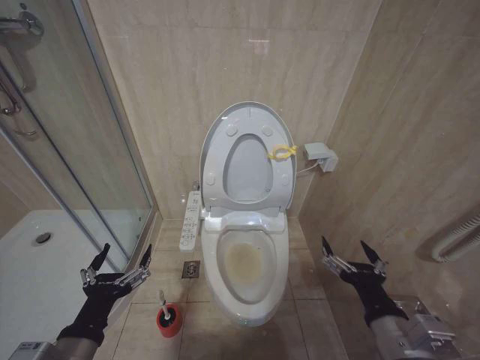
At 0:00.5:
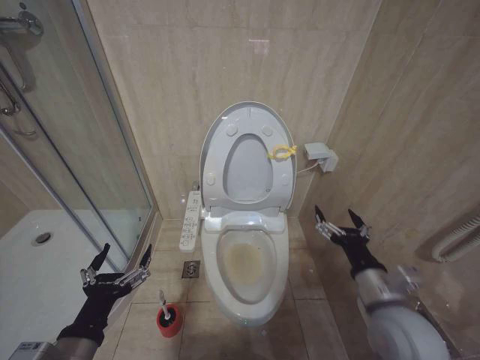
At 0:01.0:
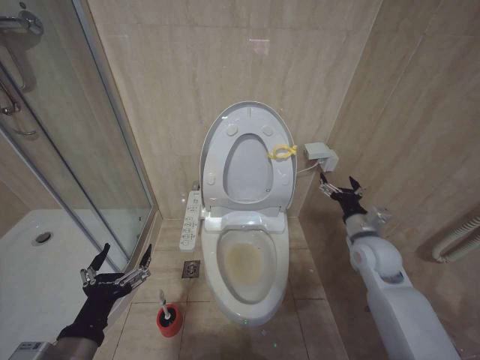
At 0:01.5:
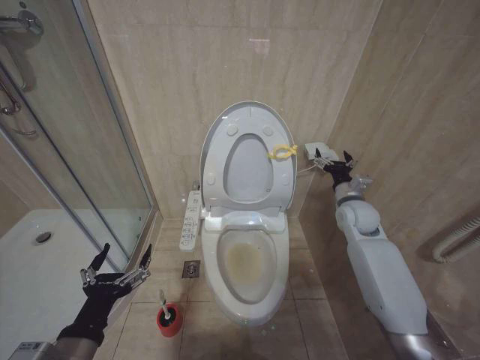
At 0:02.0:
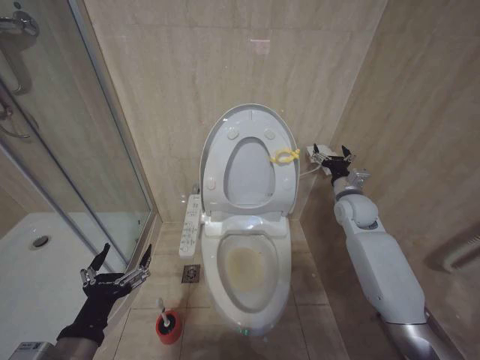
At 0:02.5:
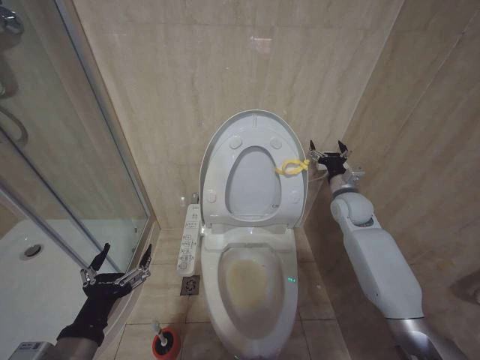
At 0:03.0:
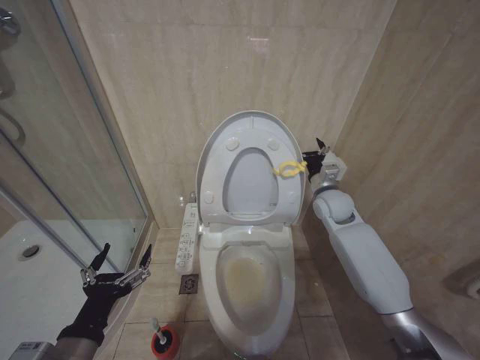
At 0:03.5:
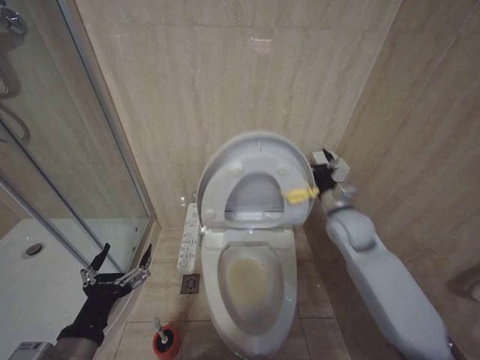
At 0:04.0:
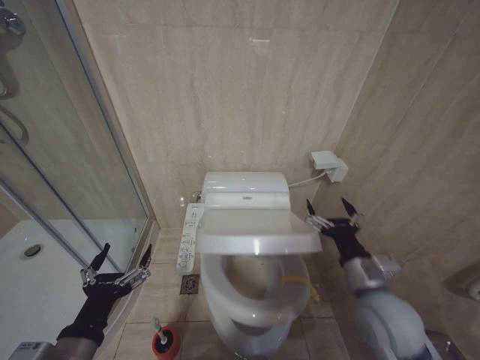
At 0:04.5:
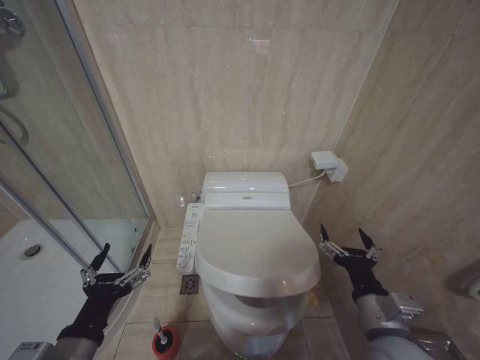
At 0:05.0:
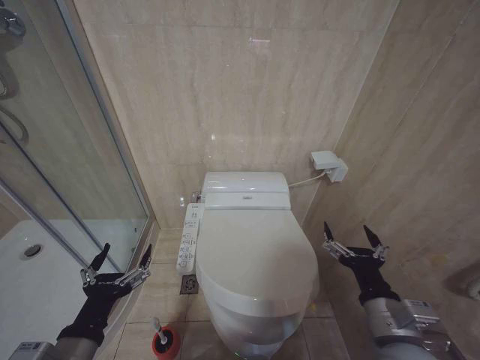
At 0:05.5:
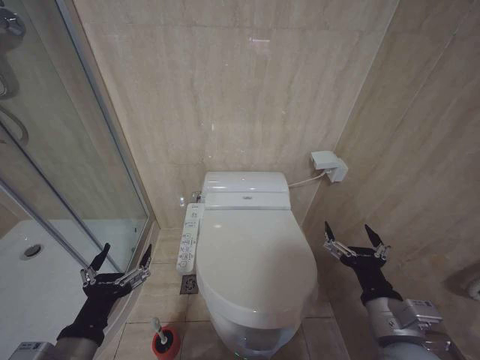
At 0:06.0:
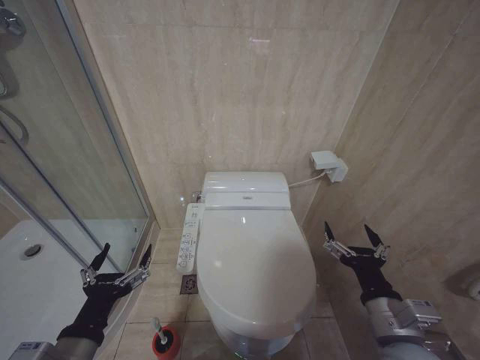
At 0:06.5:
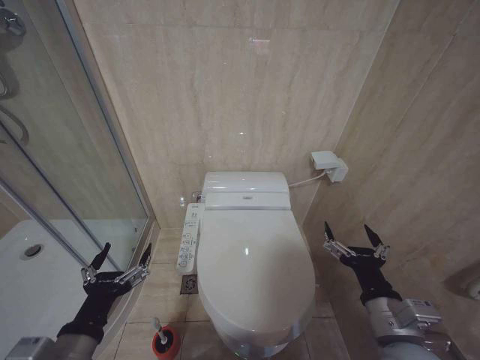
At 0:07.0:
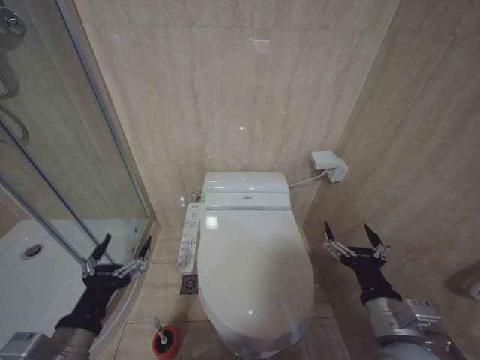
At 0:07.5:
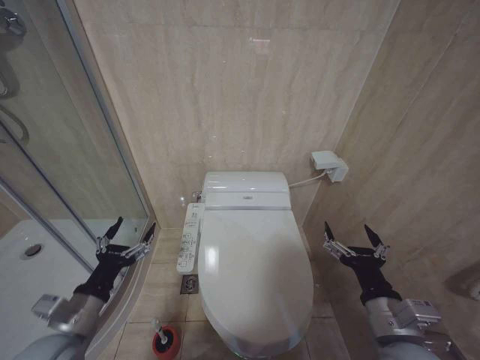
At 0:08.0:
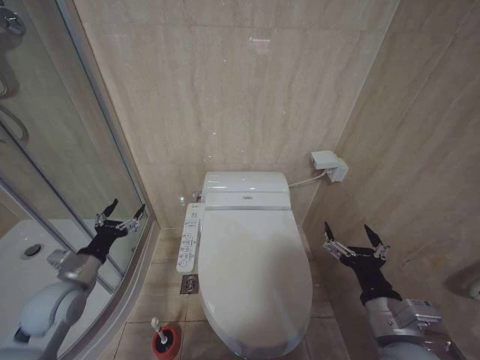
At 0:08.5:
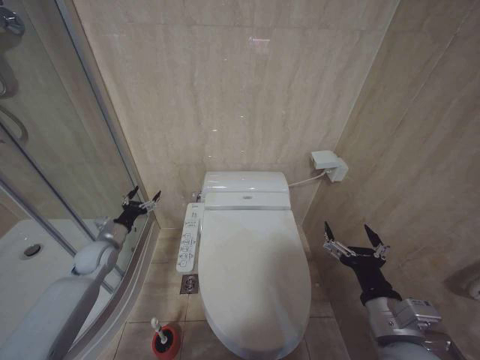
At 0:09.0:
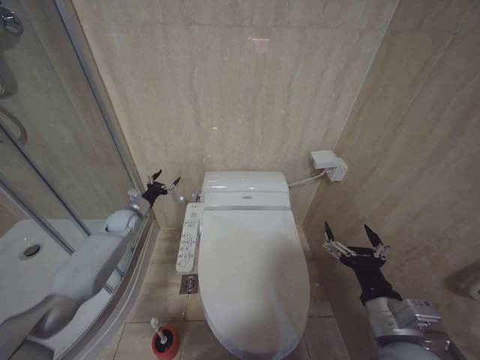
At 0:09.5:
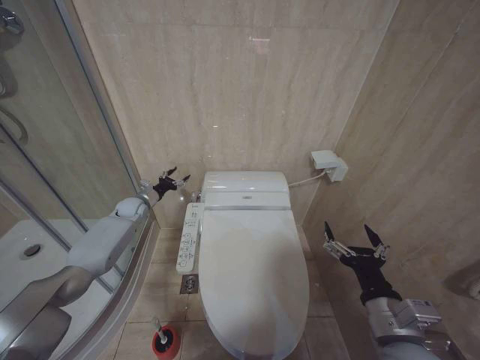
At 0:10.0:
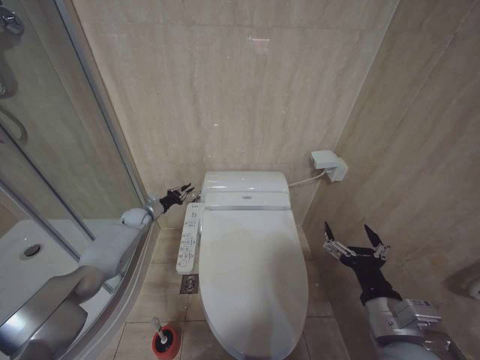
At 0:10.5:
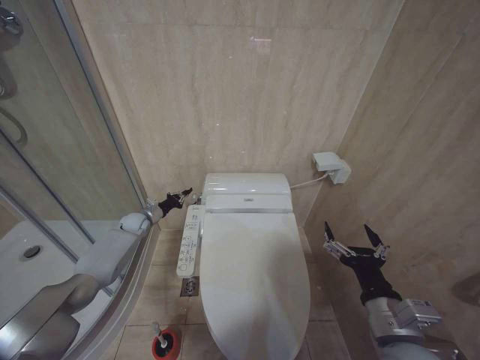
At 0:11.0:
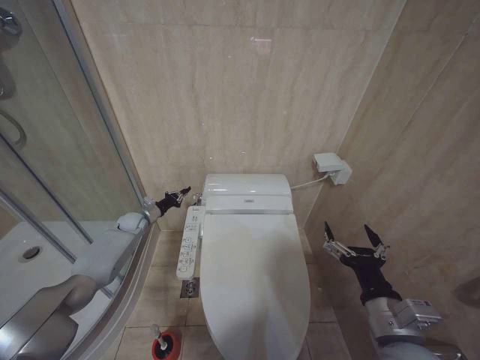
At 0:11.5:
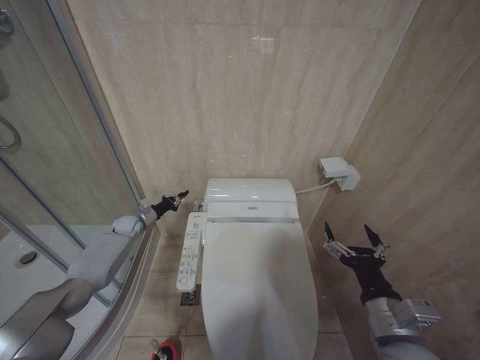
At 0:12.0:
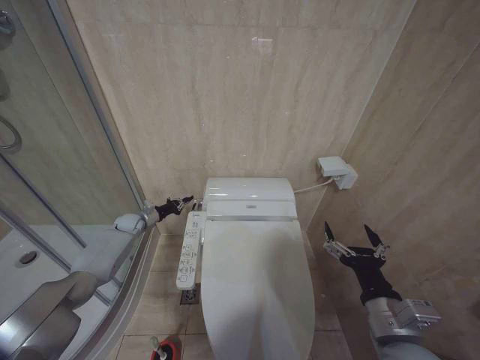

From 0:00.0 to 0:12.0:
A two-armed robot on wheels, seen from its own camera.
Task of the whole recording: Open the toilet lid, clean the toilet bowl with a toilet brush, close the toilet lid, and flush.
From 0:00.0 to 0:02.0: The right gripper moves forward, approximately 35 cm.
From 0:02.0 to 0:04.0: The right gripper travels backward by about 20 cm.
From 0:04.0 to 0:06.0: The right gripper goes some 10 cm backward.
From 0:06.0 to 0:08.0: The left gripper goes some 20 cm forward and to the left.
From 0:08.0 to 0:10.0: The left gripper is displaced forward by some 30 cm, and closes.
From 0:10.0 to 0:12.0: The left gripper closes its fingers.

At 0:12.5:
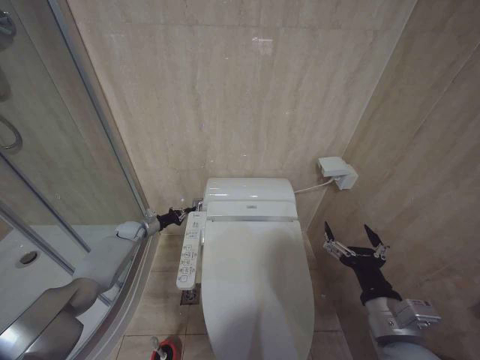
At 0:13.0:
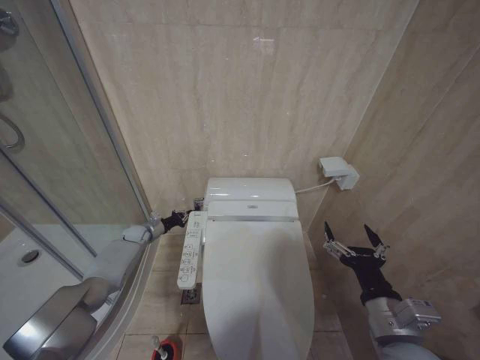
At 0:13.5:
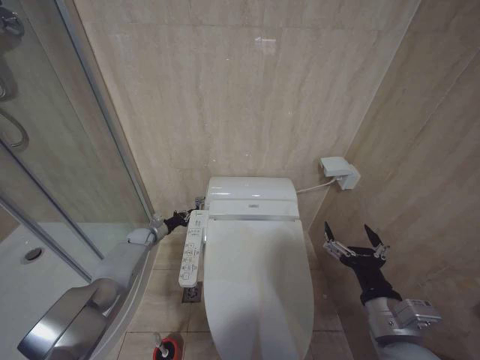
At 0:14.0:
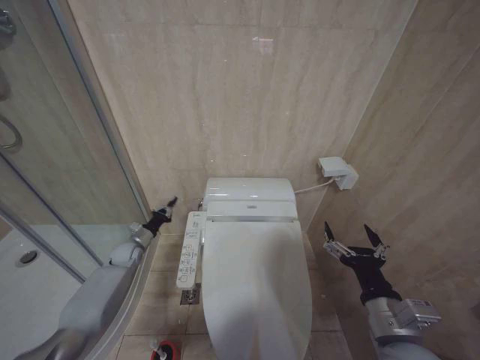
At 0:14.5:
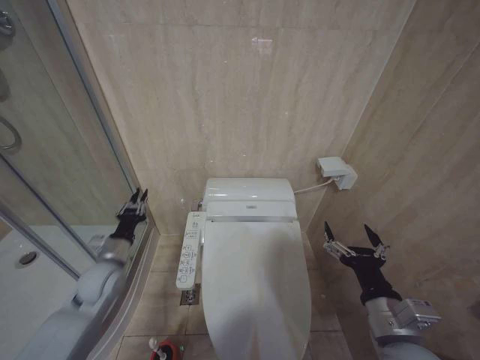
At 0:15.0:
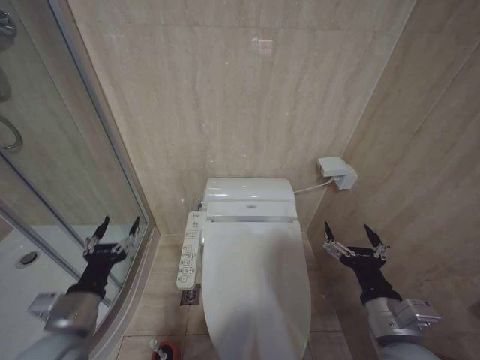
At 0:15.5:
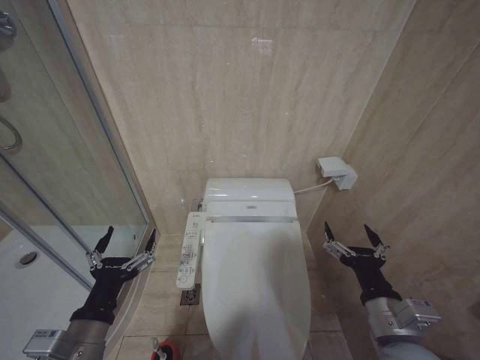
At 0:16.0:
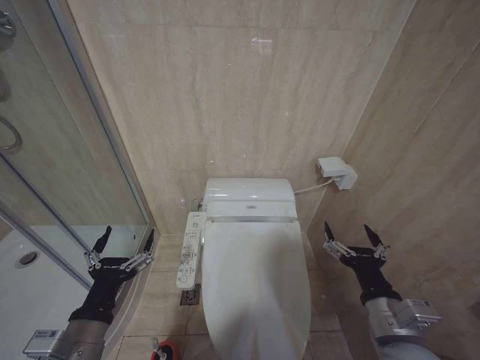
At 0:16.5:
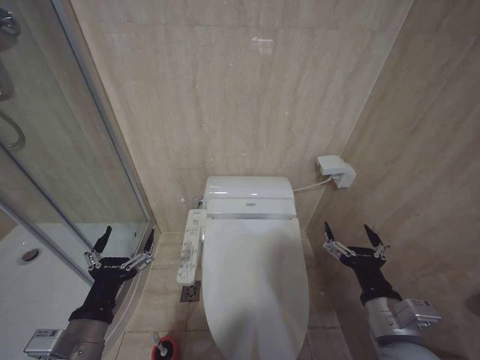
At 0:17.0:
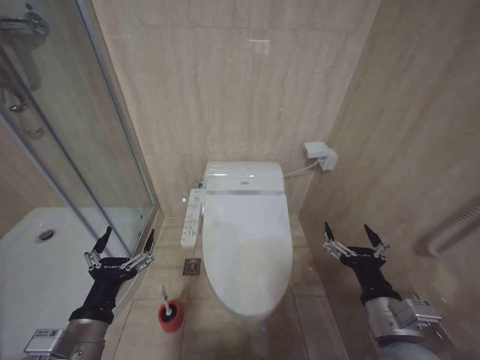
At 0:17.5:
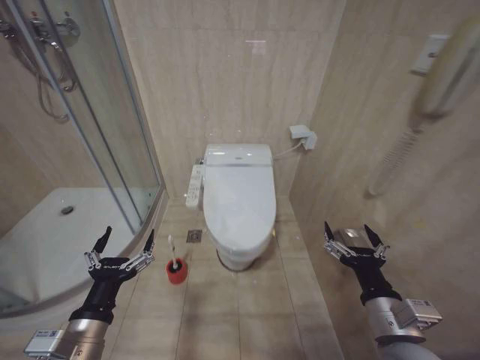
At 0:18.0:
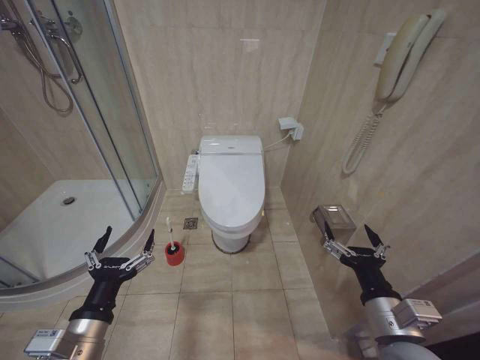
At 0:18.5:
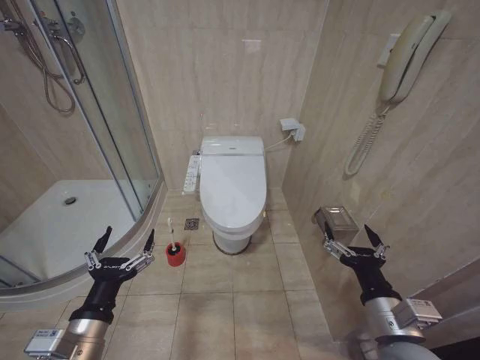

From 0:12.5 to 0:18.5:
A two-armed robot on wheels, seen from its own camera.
Task of the whole recording: Open the toilet lid, clean the toilet bowl with a toilet brush, close the toilet lid, and flush.
From 0:12.5 to 0:14.5: The left gripper is displaced backward by about 20 cm.
From 0:14.5 to 0:16.5: The left gripper travels backward by approximately 25 cm, and opens its fingers.
